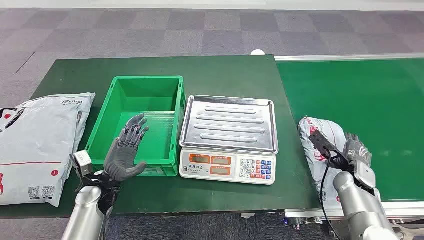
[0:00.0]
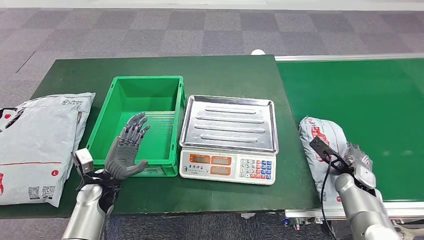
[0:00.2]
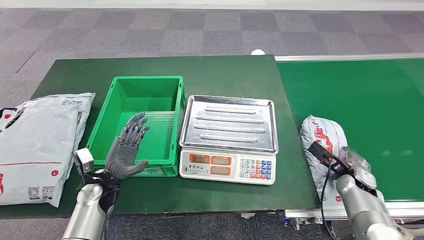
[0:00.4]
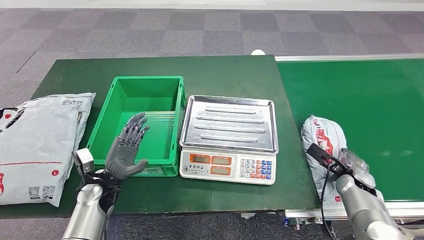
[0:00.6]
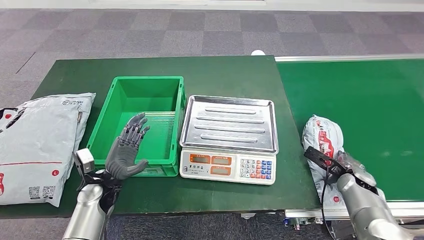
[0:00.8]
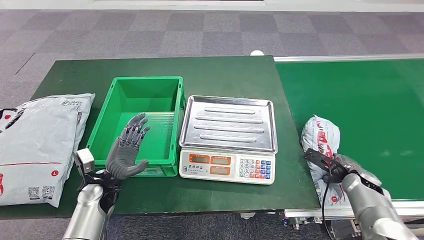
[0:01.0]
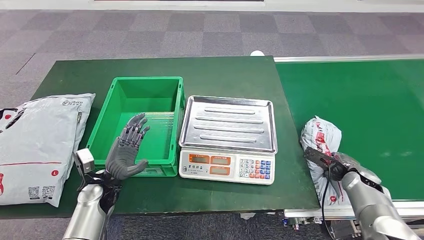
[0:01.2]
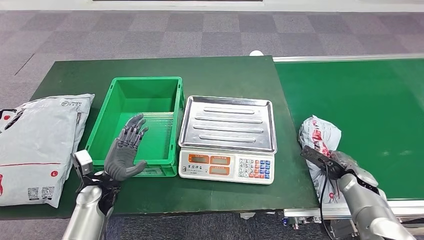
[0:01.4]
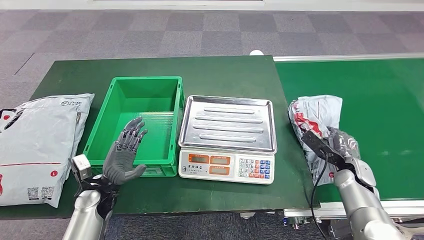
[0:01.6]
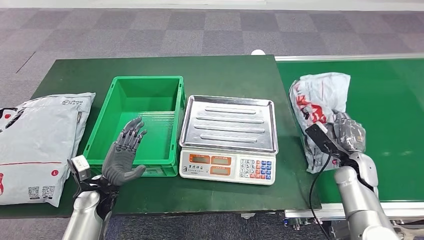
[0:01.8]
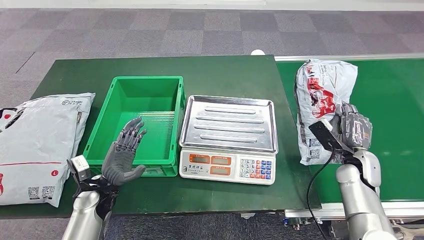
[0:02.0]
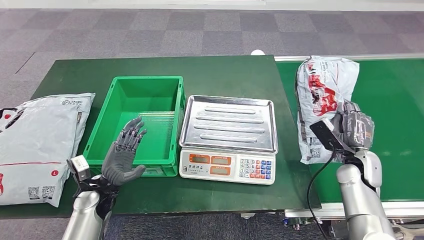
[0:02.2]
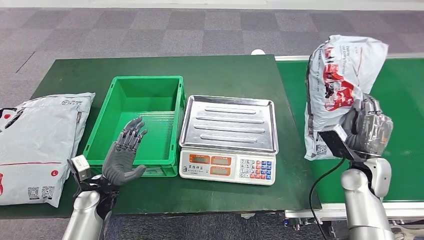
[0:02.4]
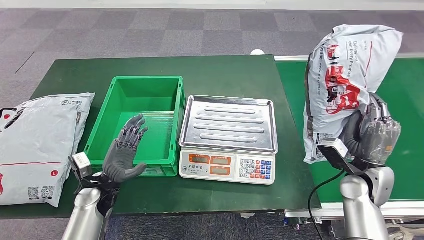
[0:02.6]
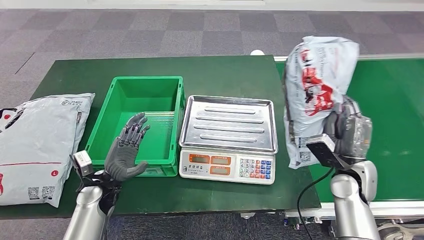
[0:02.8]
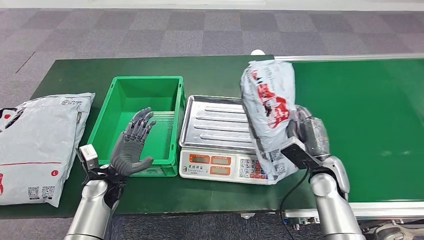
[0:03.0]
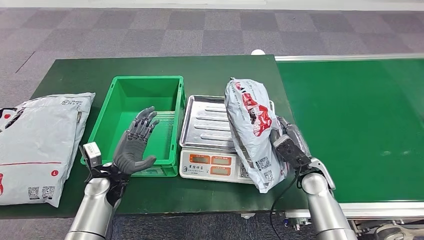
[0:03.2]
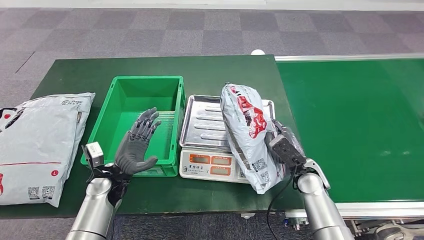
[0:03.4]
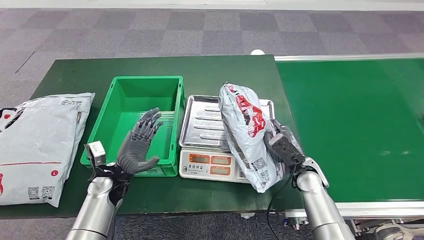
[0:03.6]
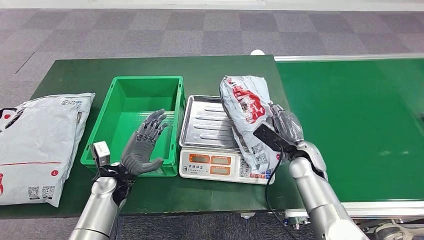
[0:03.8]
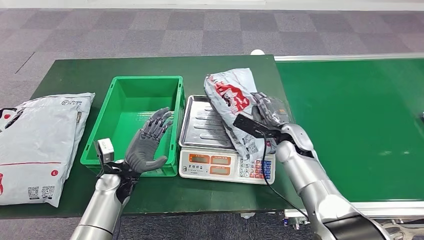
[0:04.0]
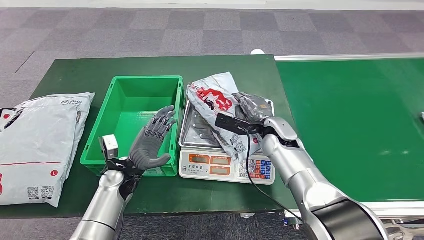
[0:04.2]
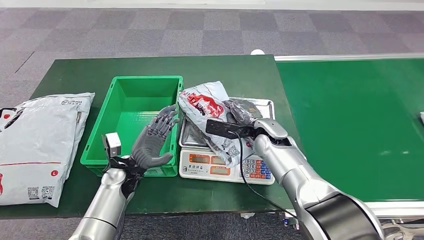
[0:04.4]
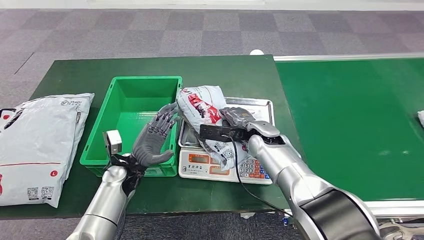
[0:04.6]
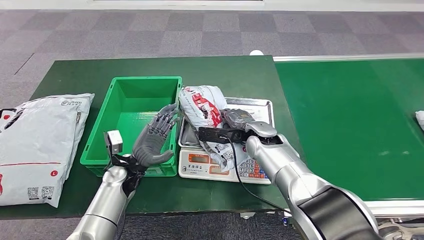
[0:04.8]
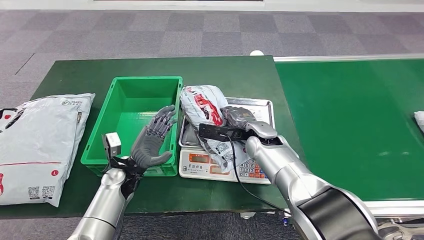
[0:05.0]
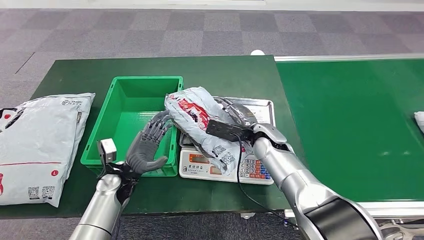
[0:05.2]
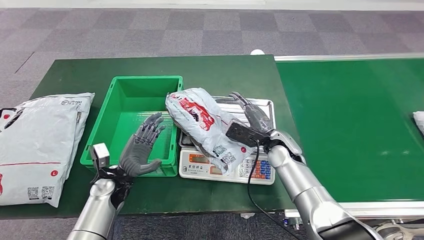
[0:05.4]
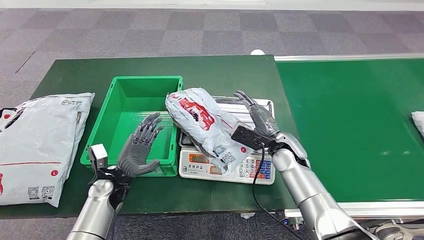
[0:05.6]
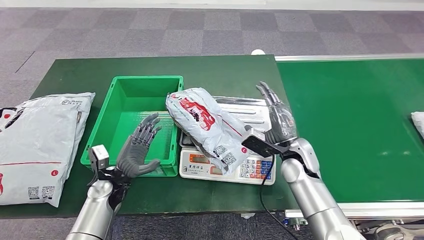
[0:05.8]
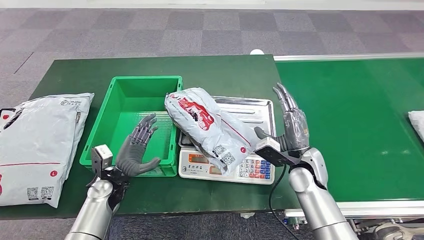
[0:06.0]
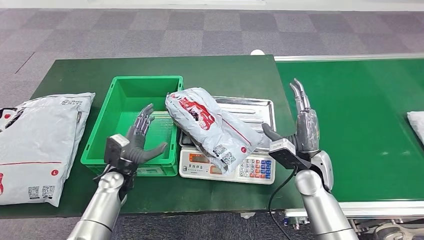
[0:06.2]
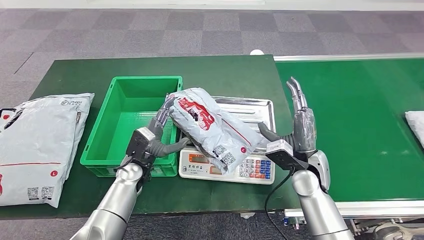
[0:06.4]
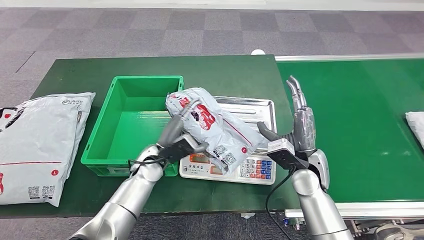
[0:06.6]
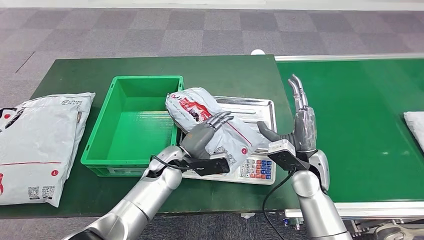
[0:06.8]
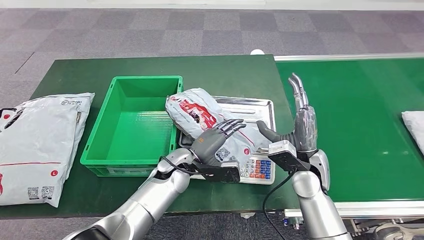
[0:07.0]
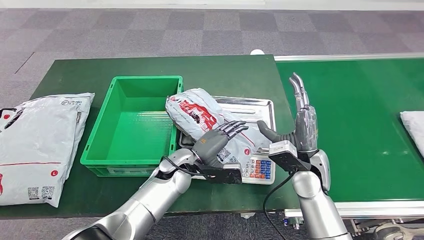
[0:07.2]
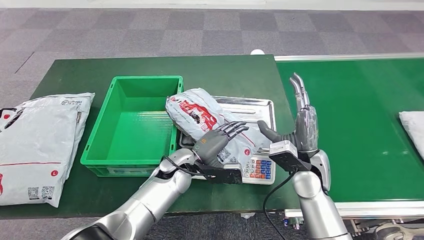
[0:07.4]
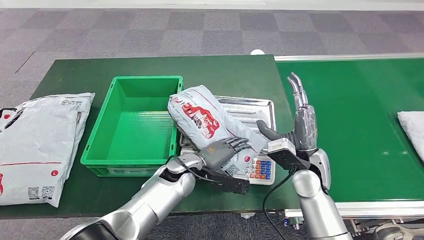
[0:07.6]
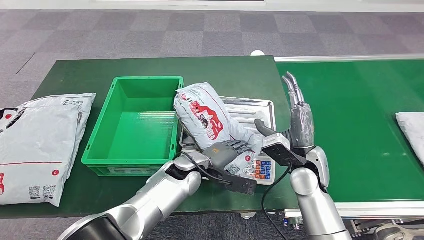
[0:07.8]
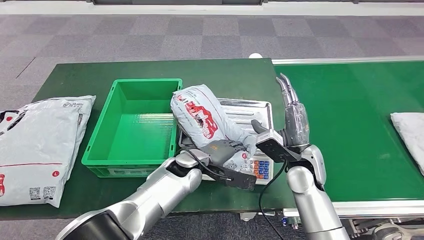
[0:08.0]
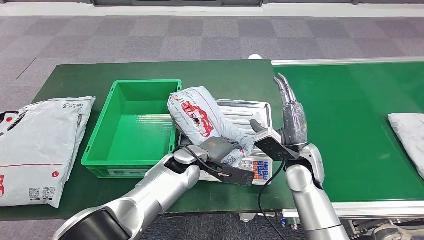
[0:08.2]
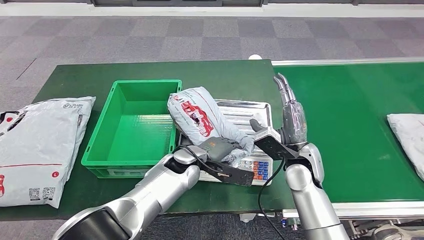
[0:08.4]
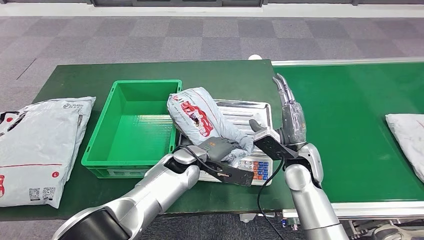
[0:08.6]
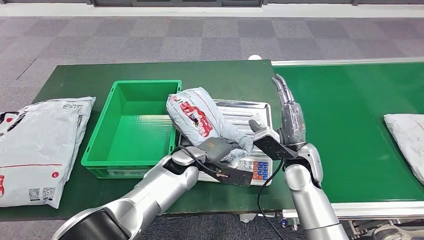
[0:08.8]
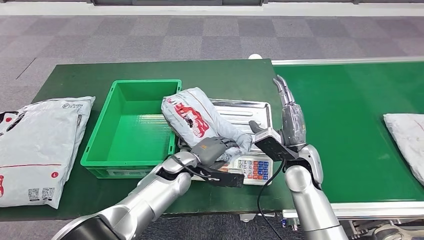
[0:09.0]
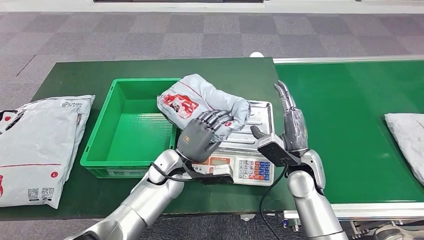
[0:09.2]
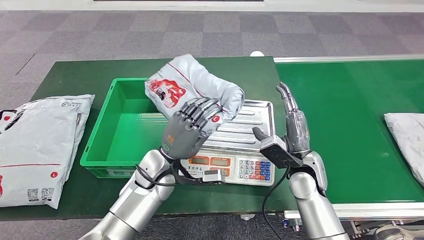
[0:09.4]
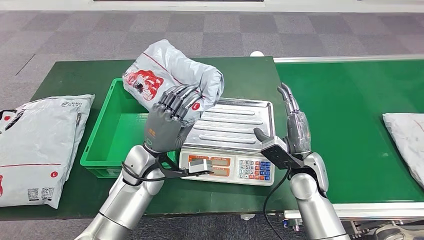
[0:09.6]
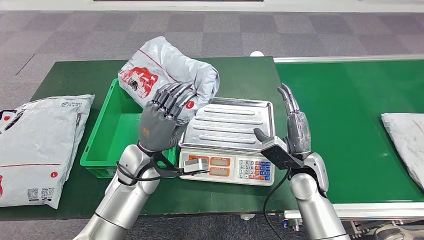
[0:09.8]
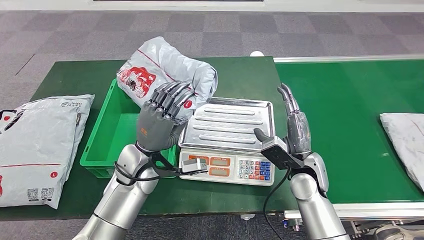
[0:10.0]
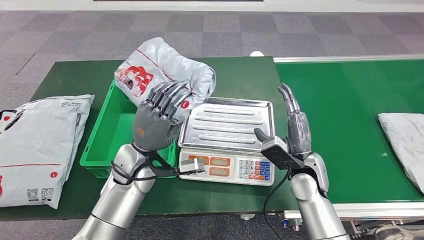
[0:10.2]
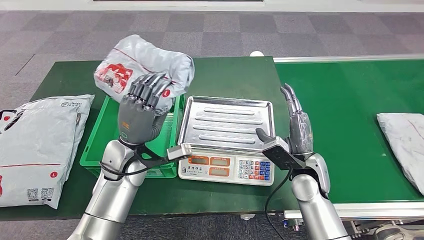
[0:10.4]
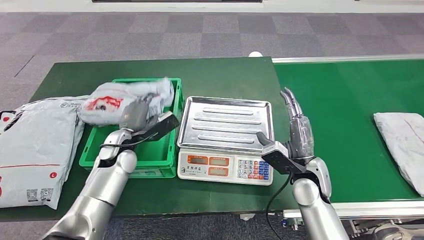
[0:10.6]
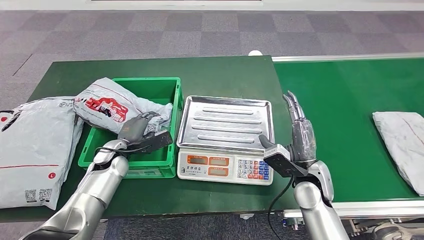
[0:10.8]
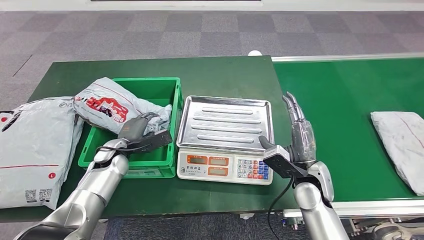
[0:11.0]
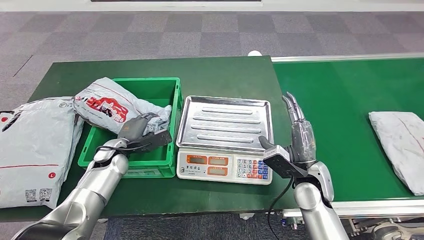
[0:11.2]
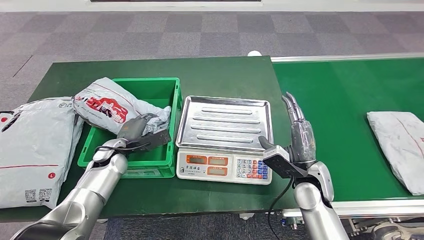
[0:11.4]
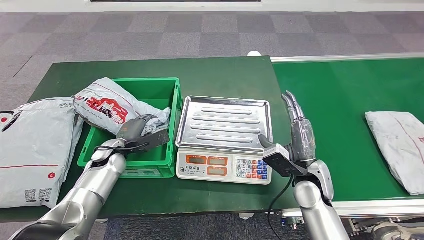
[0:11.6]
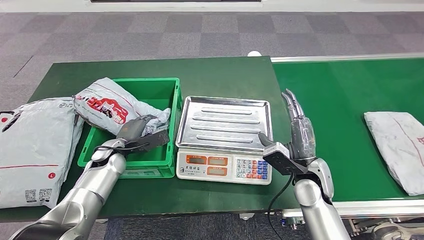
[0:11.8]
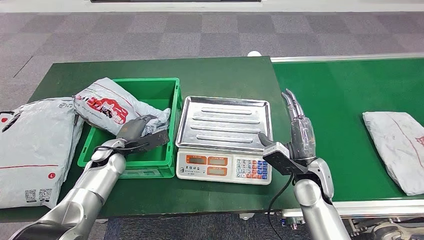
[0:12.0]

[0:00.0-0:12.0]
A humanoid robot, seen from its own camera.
Step, 0:00.0 to 0:02.4: Take the parcel off the conveyor belt.
Step, 0:02.8 to 0:04.8: Place the parcel onto the inbound machine.
Step, 0:07.8 to 0:10.2: Pick up the parcel from the inbound machine.
0:04.4 to 0:06.0: The left hand moves approximately 5 cm; the right hand goes some 10 cm to the right and backward.
0:06.0 to 0:07.6: The left hand moves to the right, about 20 cm.

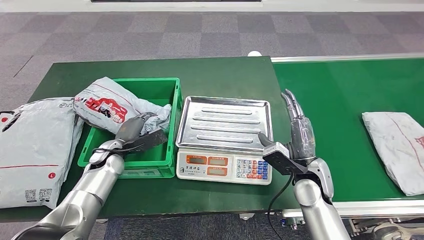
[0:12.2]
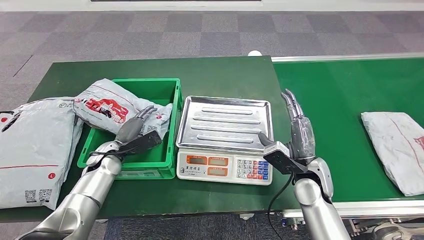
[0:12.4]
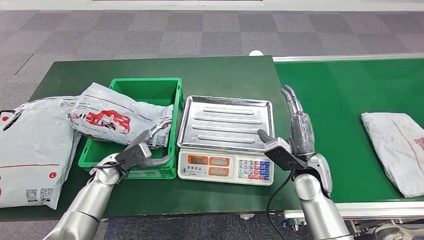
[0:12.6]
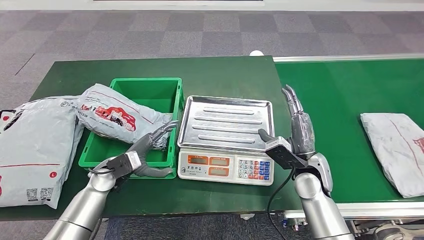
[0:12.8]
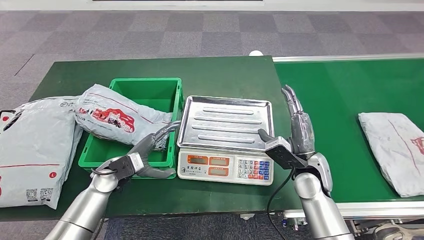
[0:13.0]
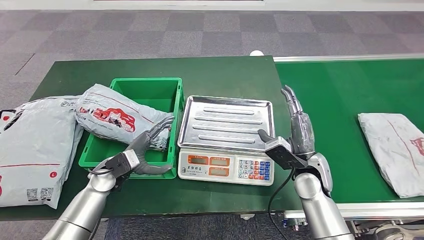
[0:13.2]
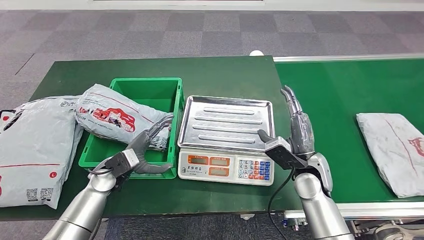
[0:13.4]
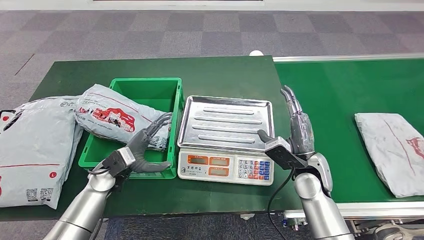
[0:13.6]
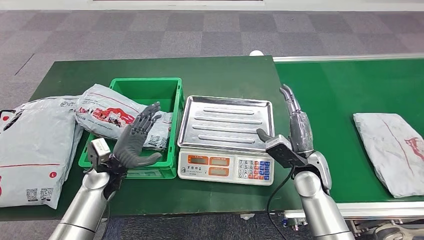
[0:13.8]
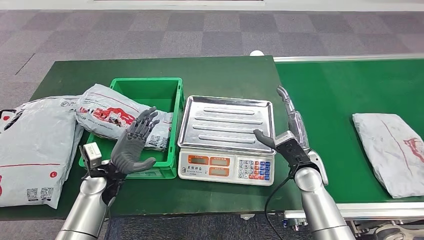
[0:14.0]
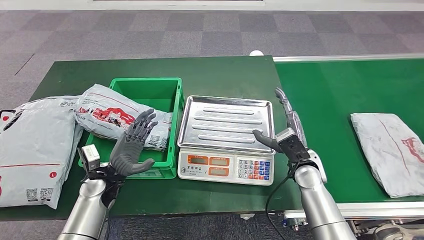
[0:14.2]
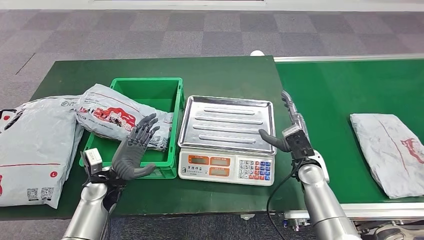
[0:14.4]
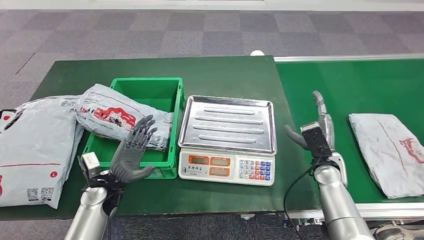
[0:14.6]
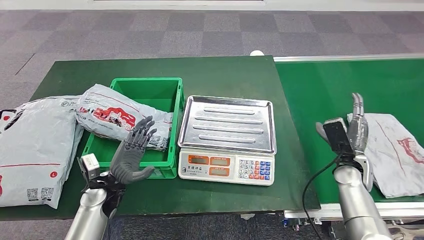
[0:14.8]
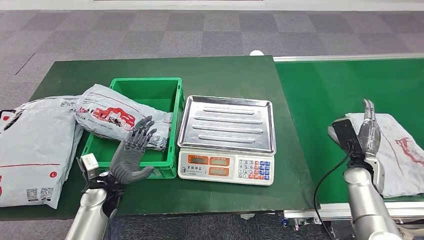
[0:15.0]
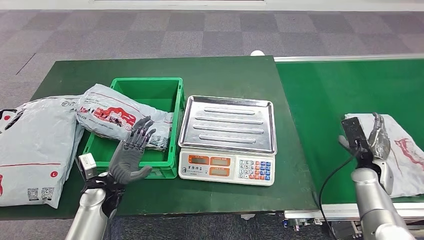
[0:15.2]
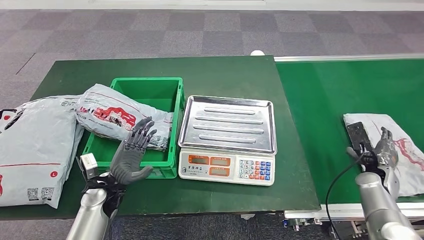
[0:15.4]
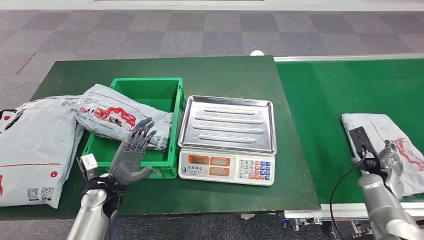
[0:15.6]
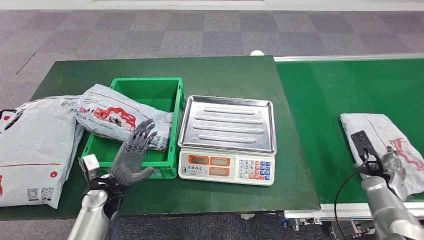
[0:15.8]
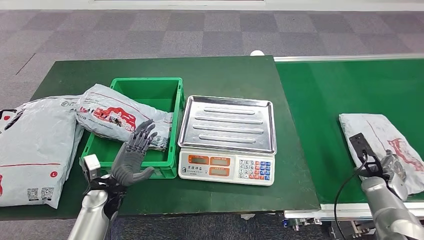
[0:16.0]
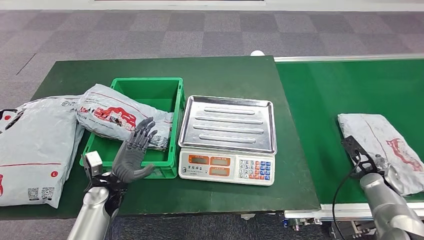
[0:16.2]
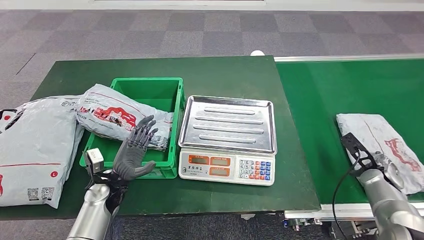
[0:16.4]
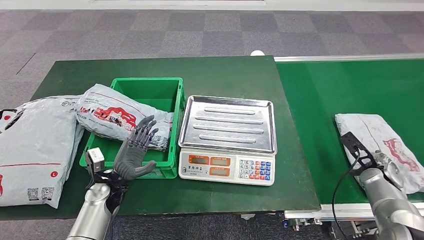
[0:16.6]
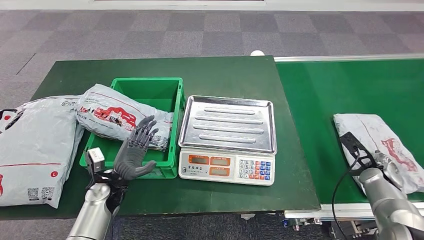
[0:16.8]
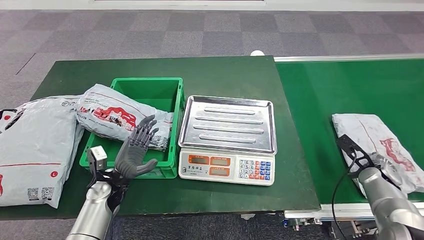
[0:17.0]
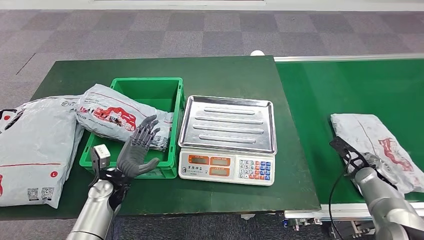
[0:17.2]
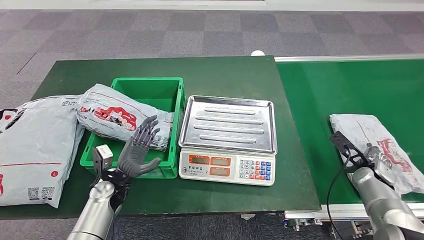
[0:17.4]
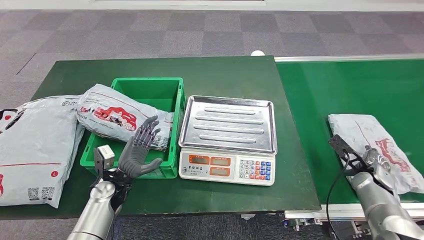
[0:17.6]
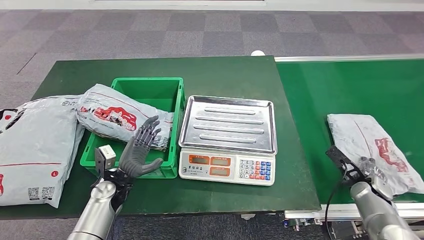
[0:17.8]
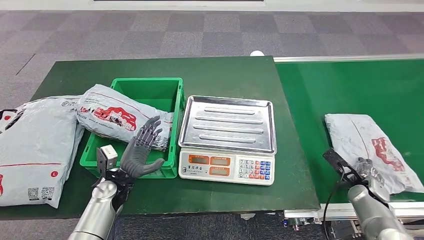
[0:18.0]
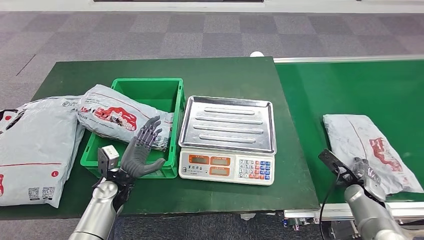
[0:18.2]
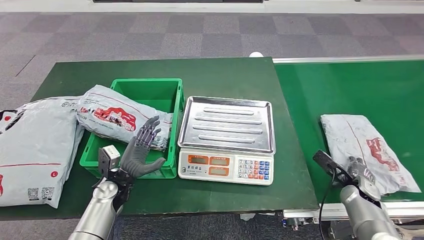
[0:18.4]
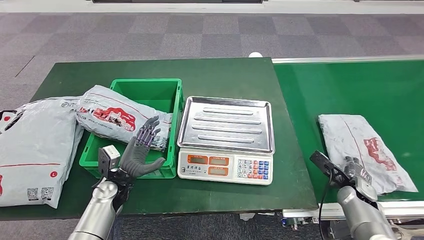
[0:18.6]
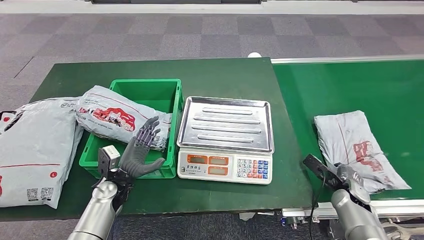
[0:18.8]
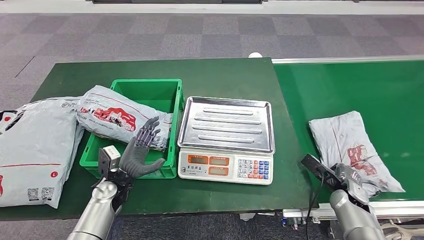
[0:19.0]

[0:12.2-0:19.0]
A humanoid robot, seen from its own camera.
0:12.2 to 0:13.6: The left hand heads backward, covering approximately 5 cm.
0:13.6 to 0:15.0: The right hand is displaced to the right by approximately 15 cm.
0:15.0 to 0:16.2: The right hand moves to the right, roughly 5 cm.
0:16.2 to 0:17.6: The hands make only small movements.
0:17.6 to 0:19.0: The right hand travels to the left by some 5 cm.
